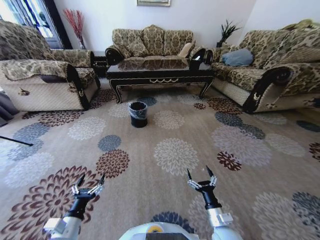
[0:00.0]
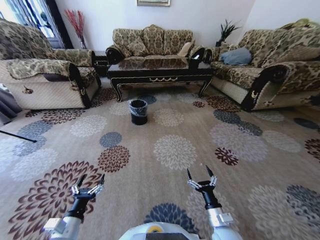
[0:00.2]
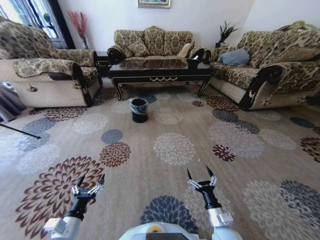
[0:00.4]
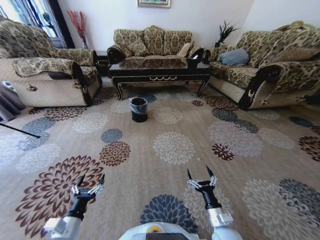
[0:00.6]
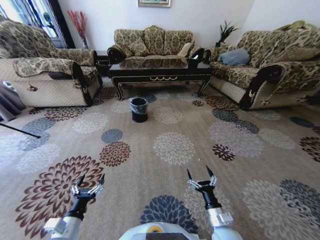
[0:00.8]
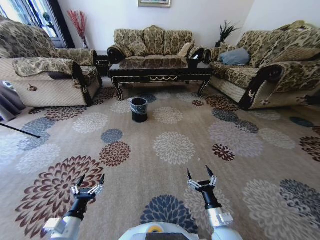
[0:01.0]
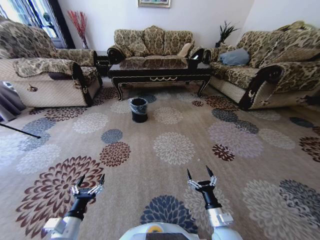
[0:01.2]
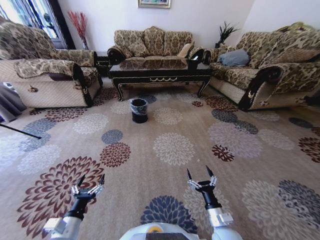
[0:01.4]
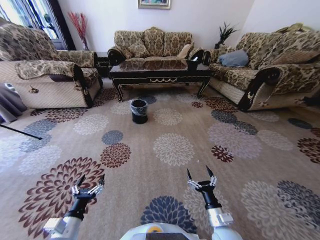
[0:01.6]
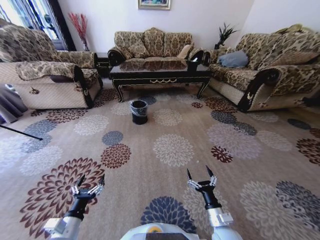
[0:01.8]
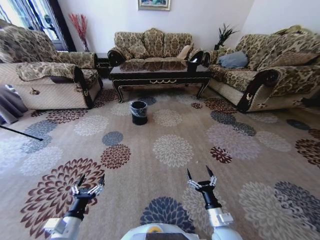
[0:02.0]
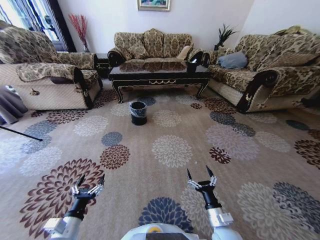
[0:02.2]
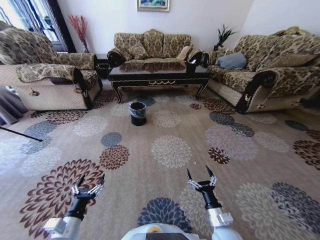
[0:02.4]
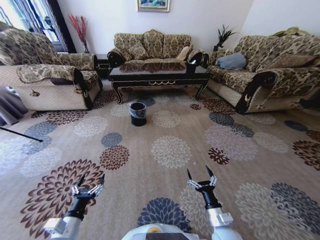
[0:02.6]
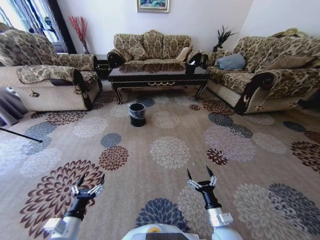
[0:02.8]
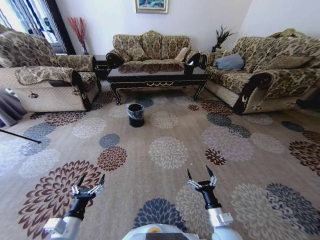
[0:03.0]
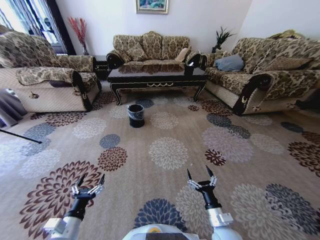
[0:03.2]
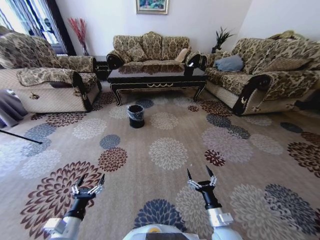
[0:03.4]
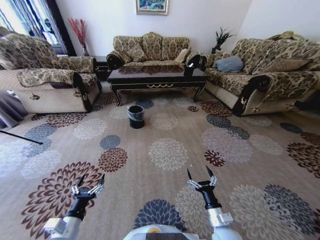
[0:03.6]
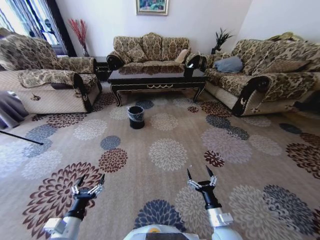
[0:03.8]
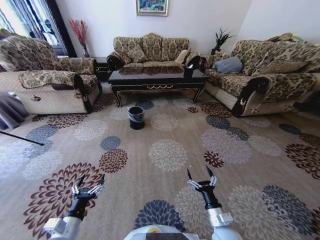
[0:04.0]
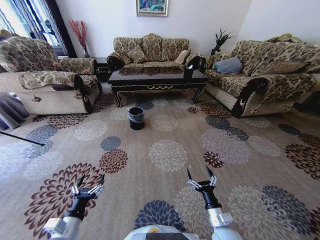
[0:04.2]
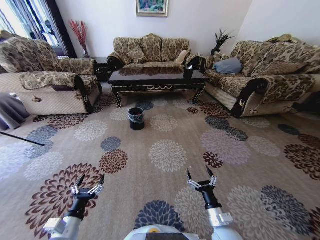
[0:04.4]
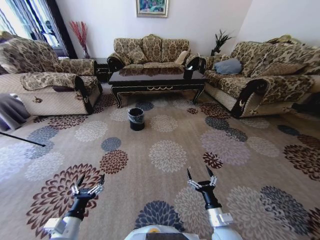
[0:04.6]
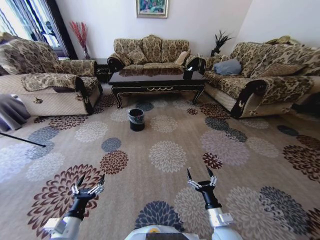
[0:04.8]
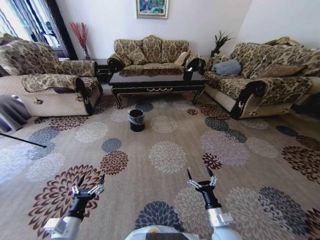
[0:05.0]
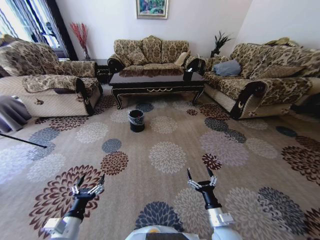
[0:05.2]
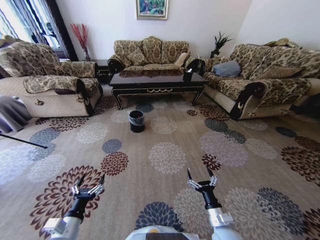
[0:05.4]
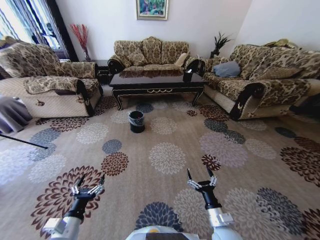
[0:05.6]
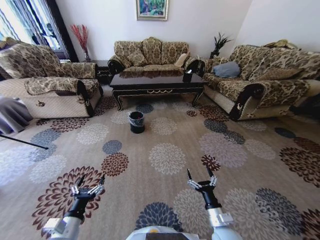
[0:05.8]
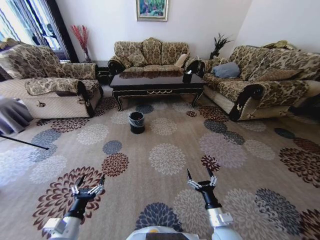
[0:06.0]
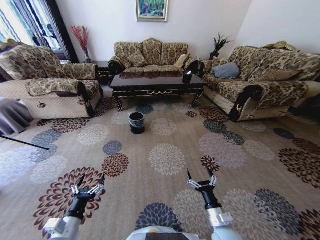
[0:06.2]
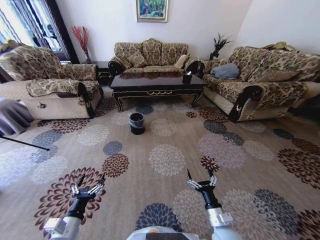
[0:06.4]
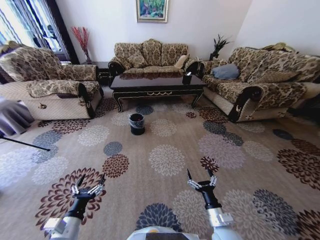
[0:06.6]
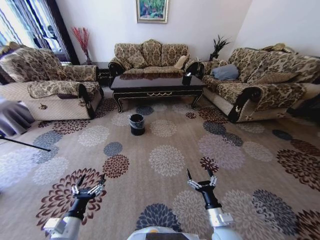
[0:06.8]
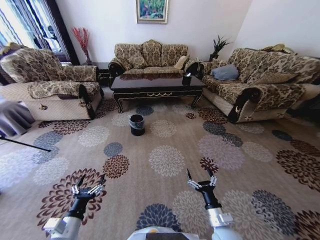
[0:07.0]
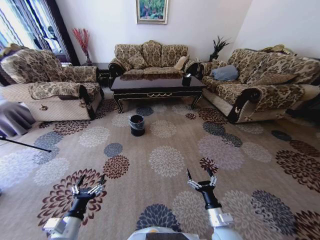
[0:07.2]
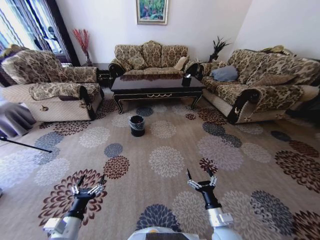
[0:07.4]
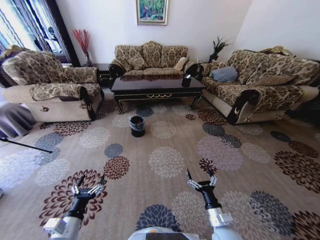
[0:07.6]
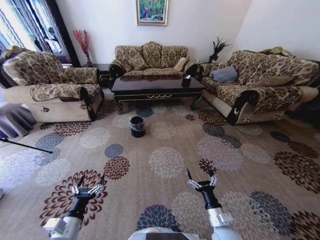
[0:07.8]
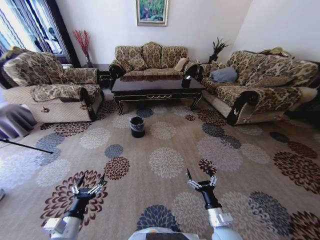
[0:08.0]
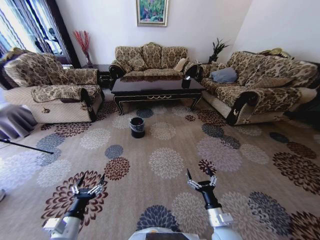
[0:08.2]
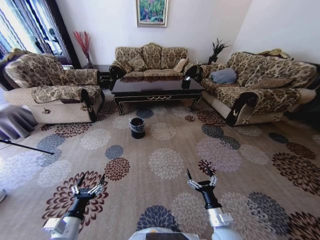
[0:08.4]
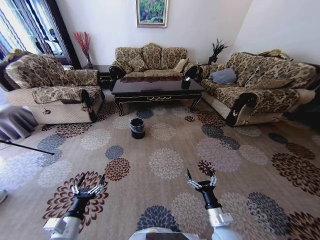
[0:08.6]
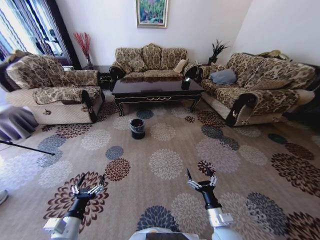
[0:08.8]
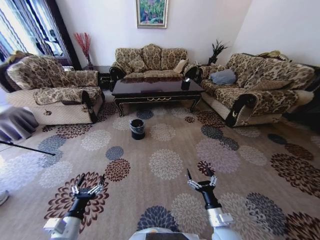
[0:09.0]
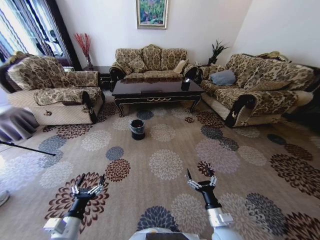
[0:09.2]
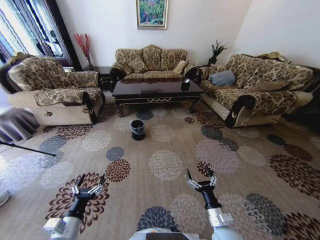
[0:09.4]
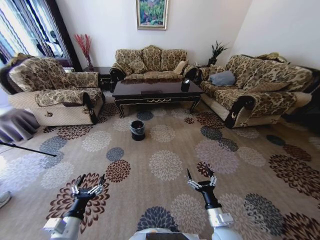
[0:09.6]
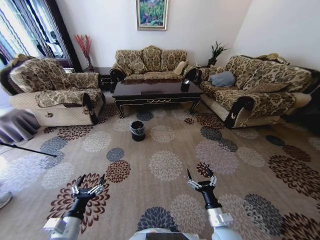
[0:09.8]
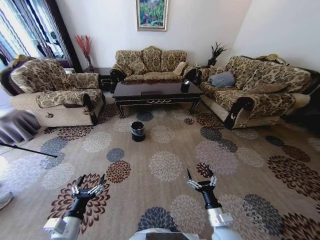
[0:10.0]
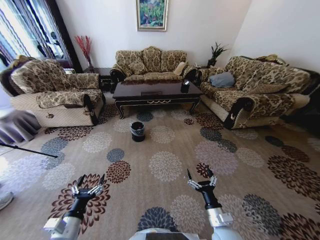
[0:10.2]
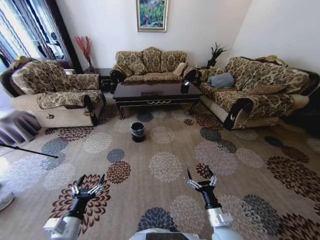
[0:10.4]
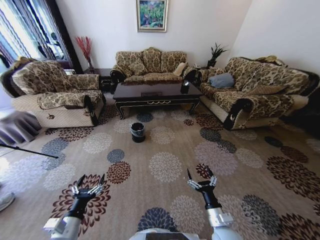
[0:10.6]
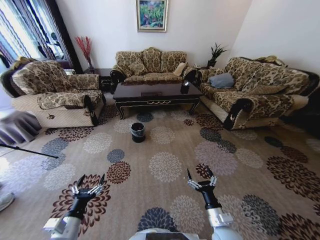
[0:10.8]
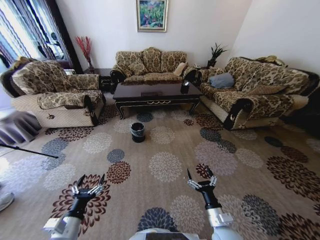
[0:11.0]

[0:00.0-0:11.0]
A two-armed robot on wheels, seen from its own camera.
Task of the whole recording: Move to the front of the table and pick up the trash from the floor, then place it into the trash bin.
0:09.4 to 0:11.0: The two grippers keep their place.
